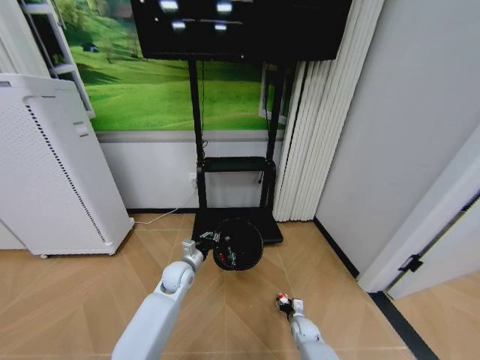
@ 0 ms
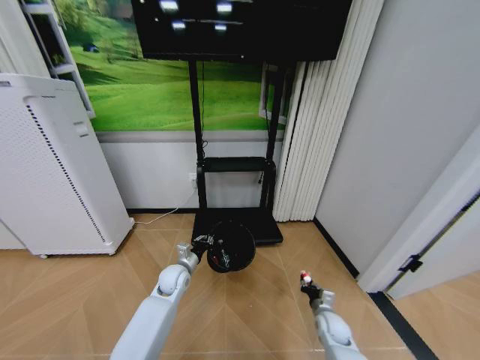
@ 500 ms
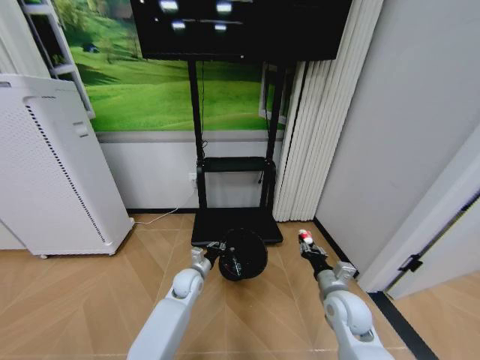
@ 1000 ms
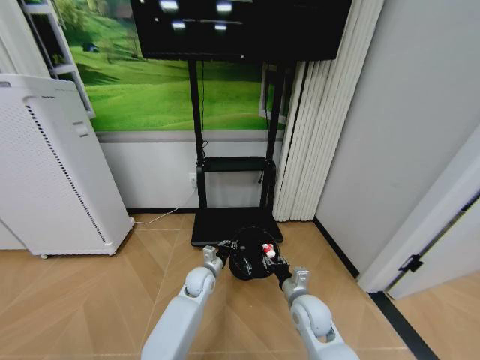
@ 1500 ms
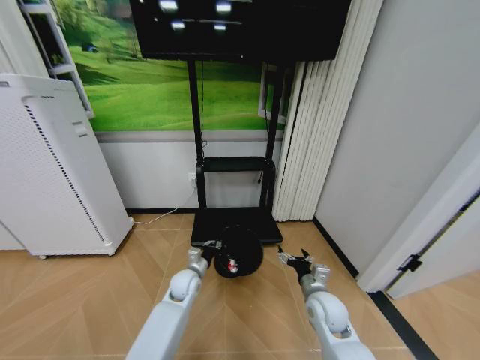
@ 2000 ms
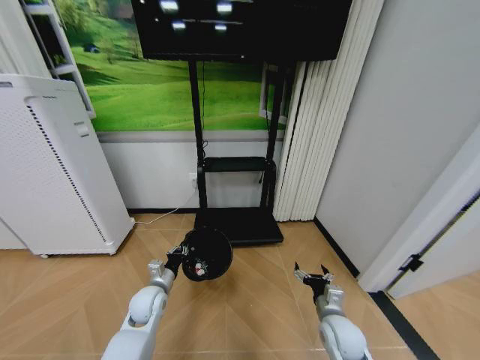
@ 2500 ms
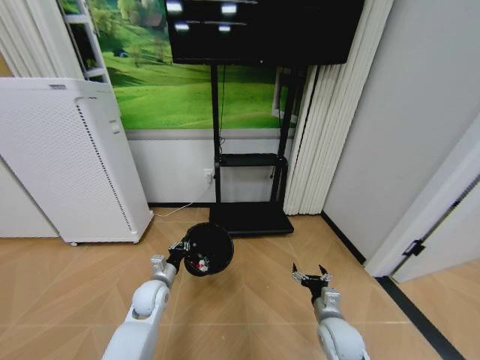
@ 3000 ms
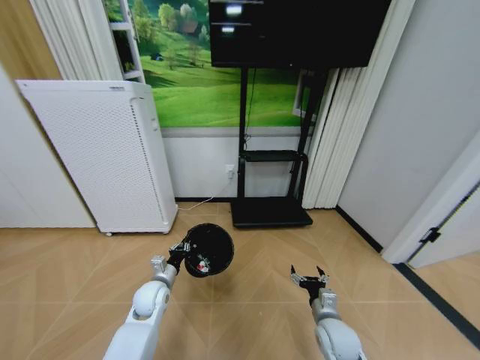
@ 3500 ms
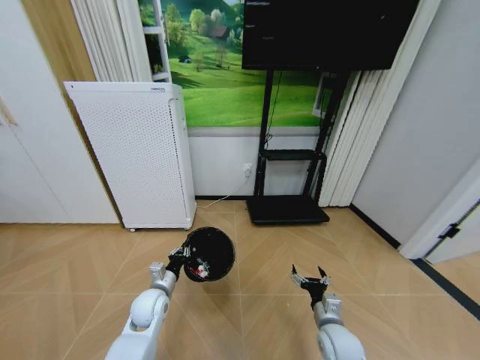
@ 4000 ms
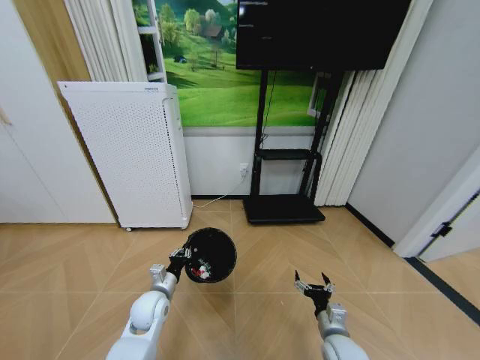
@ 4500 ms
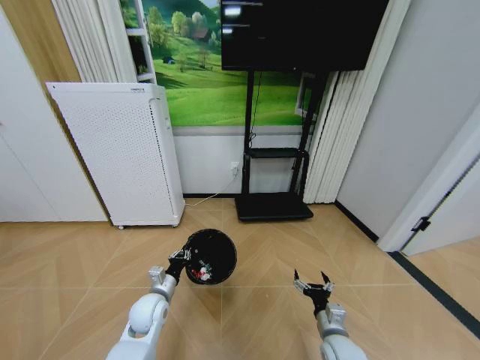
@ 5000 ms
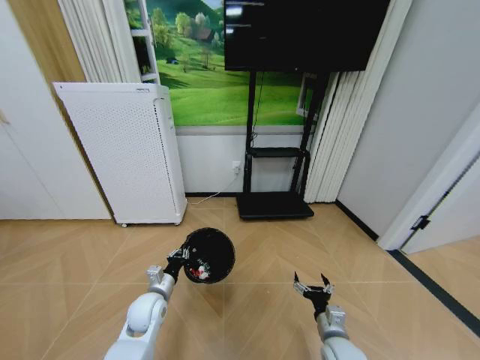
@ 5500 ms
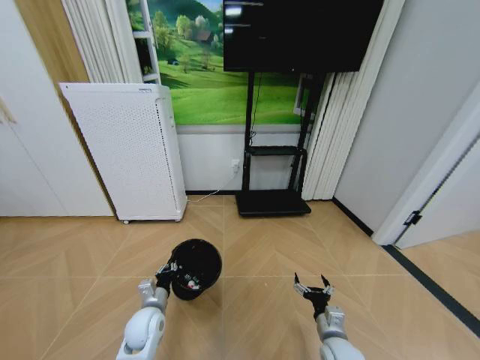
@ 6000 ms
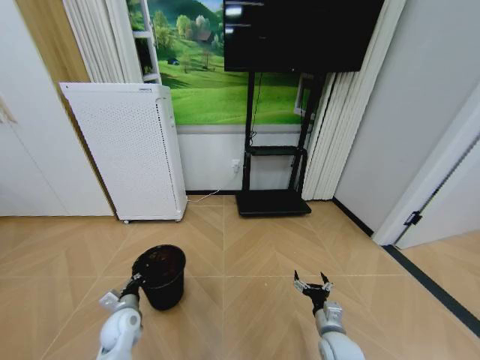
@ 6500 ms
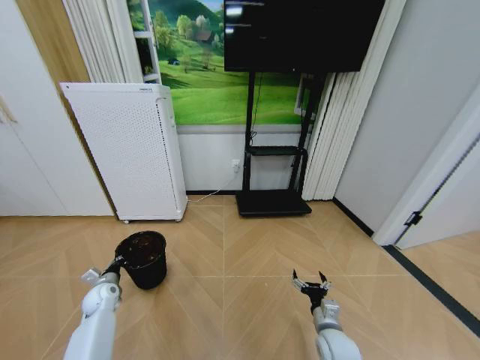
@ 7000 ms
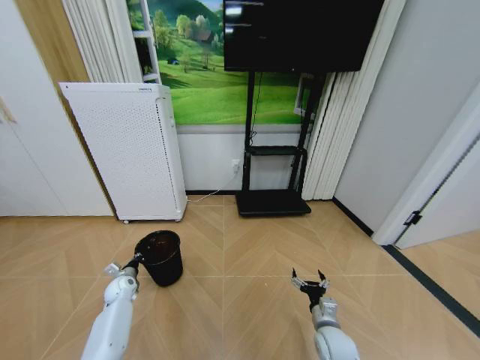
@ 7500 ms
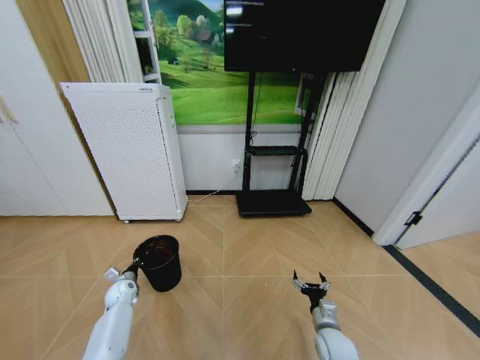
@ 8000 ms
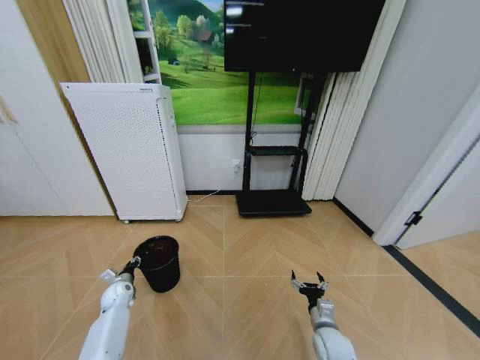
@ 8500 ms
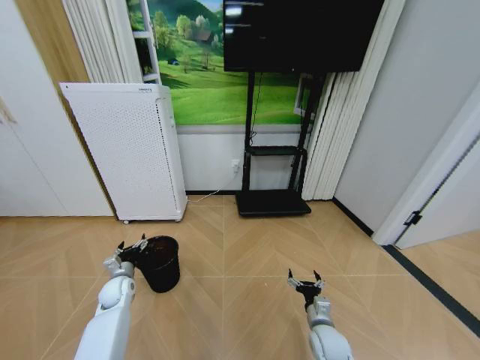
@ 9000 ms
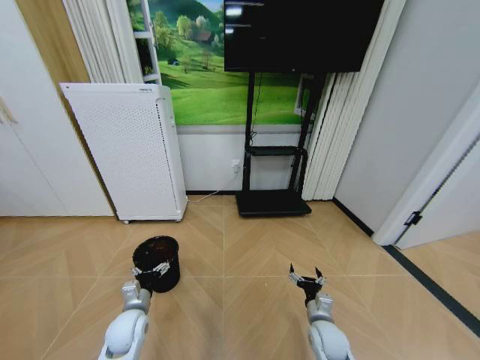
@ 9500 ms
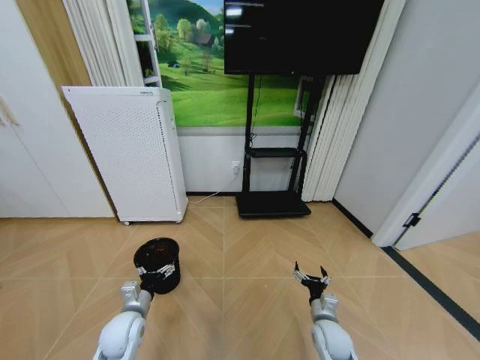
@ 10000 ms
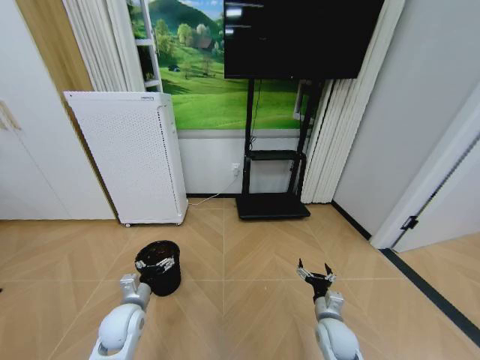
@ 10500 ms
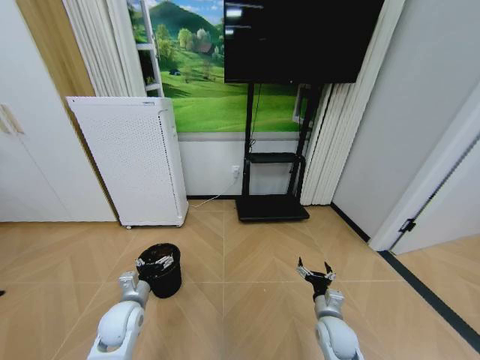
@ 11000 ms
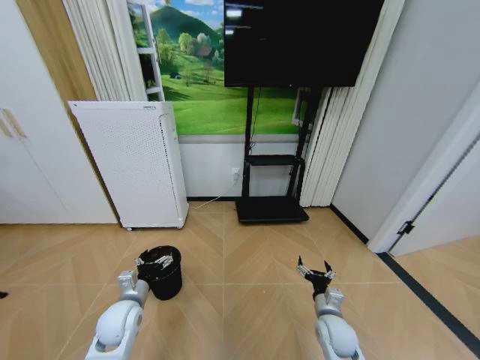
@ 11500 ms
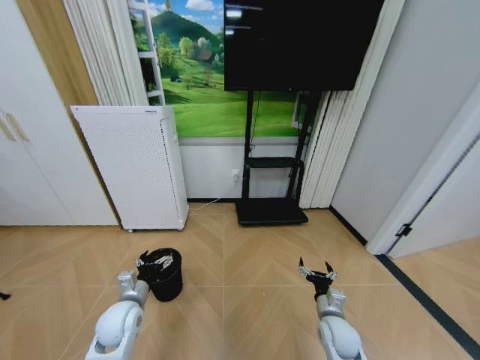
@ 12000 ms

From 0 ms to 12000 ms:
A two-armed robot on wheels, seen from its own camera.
Task of the whole recording: Pick up the trash bin and place the garbage on the floor into it.
From 0 ms to 2000 ms: The left gripper moves to the right, approximately 5 cm. Meanwhile the right gripper heads upward, covering approximately 25 cm, and closes, then opens again.
From 2000 ms to 4000 ms: The right gripper is displaced downward and backward by roughly 10 cm; the left gripper moves to the left and backward, roughly 15 cm.
From 6000 ms to 8000 ms: The left gripper goes roughly 20 cm to the left, forward and downward.
From 8000 ms to 10000 ms: The left gripper goes about 20 cm backward, to the right and upward, and opens its fingers.
From 10000 ms to 12000 ms: The grippers stay close to where they were, moving slightly.

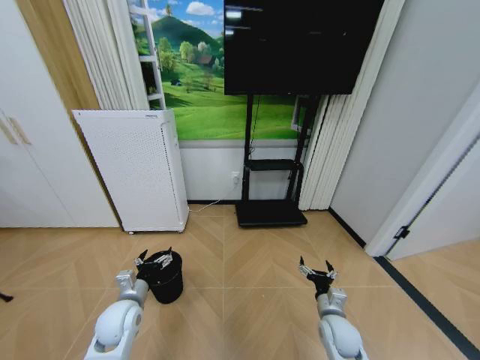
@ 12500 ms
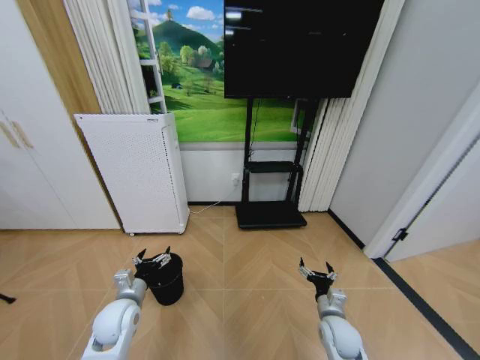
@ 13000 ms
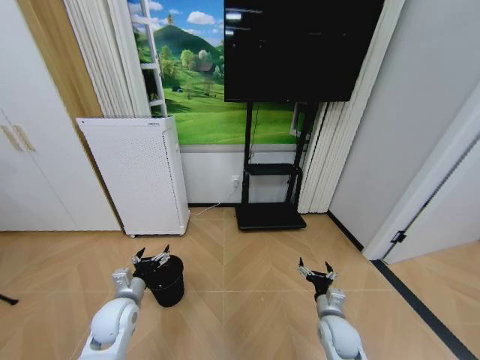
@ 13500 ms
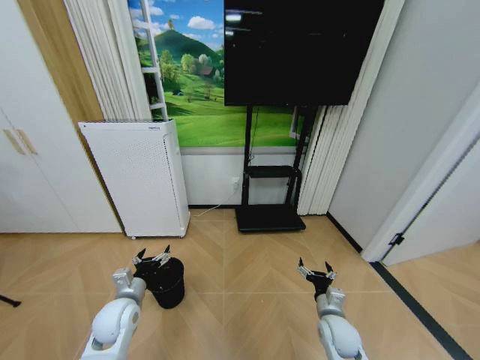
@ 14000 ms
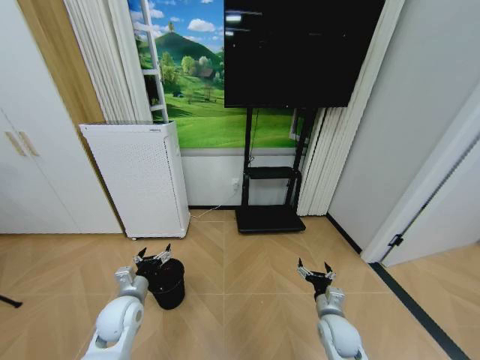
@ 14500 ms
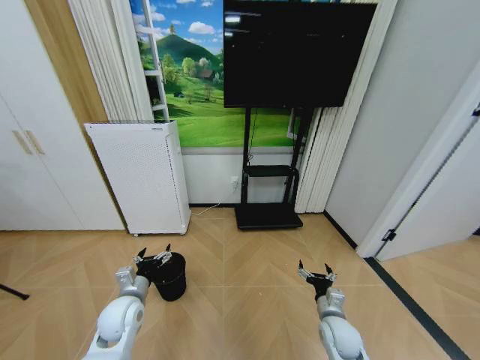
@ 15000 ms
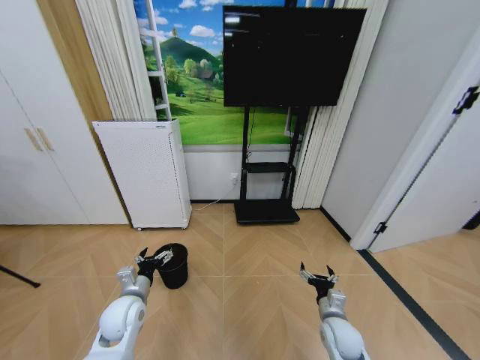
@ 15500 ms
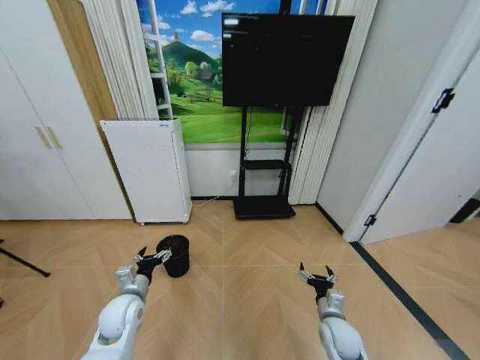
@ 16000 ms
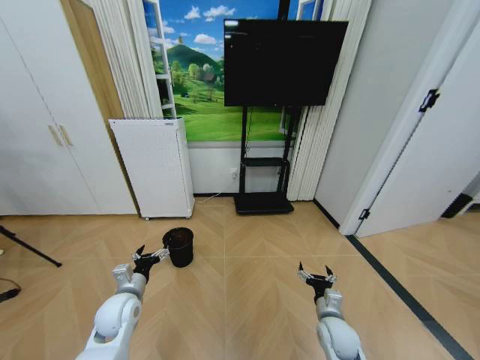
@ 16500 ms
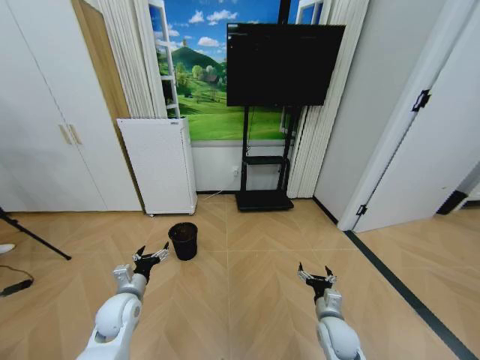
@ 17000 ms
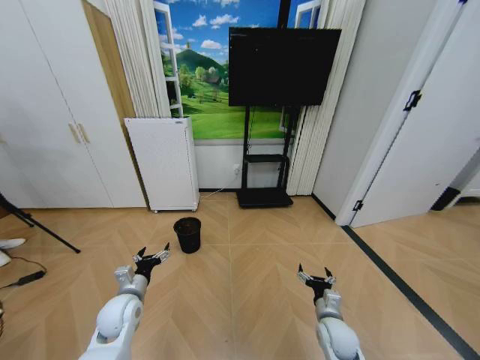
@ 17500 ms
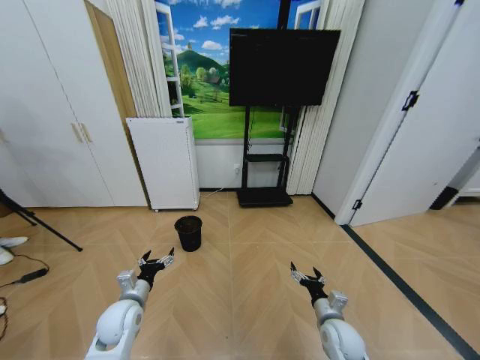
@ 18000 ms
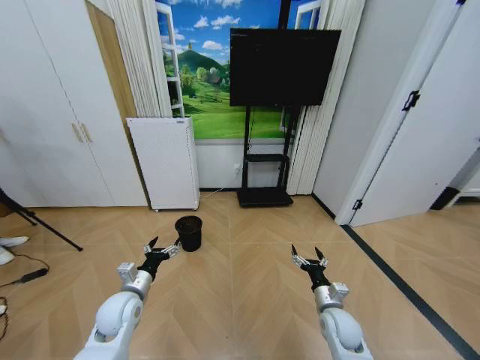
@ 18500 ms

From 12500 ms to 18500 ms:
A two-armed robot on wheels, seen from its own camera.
Task of the whole recording: Pick up the trash bin and place the garbage on the floor into it.
From 12500 ms to 14500 ms: Both grippers stay about where they are.
